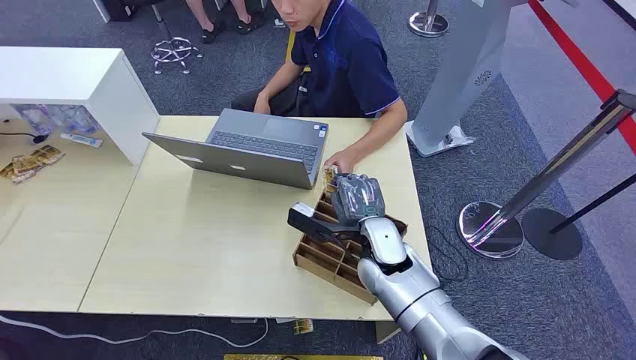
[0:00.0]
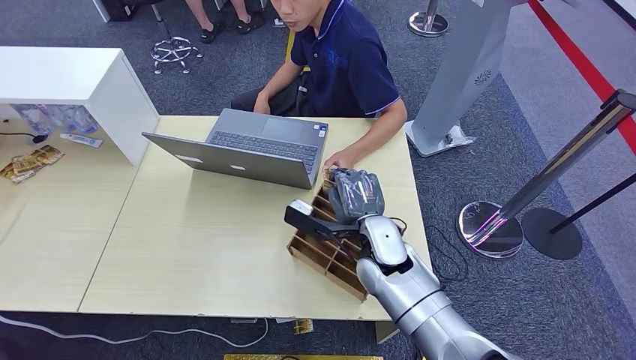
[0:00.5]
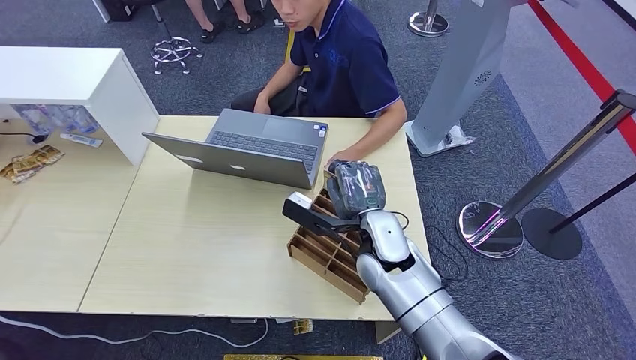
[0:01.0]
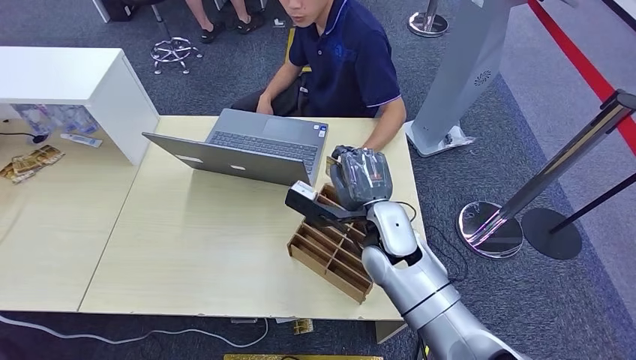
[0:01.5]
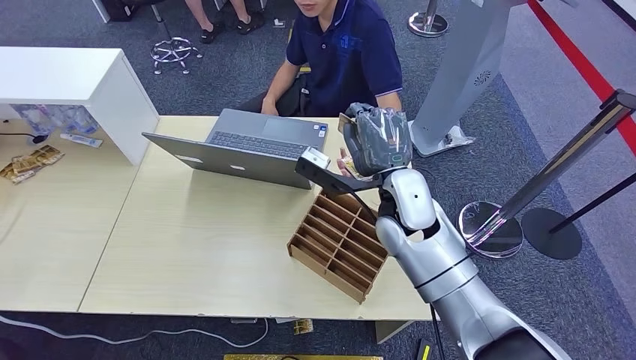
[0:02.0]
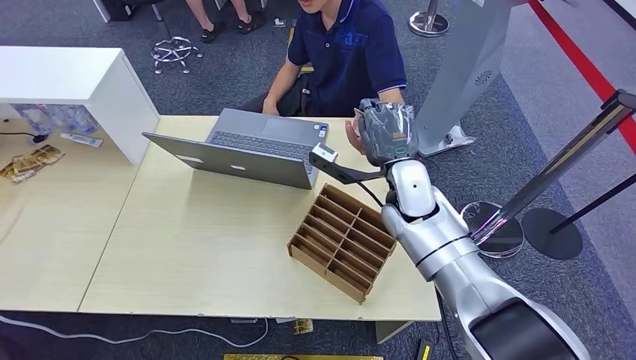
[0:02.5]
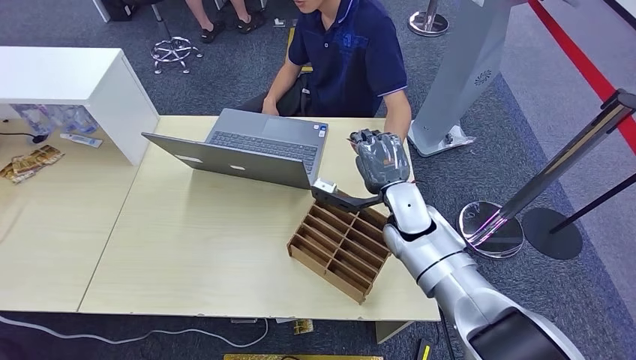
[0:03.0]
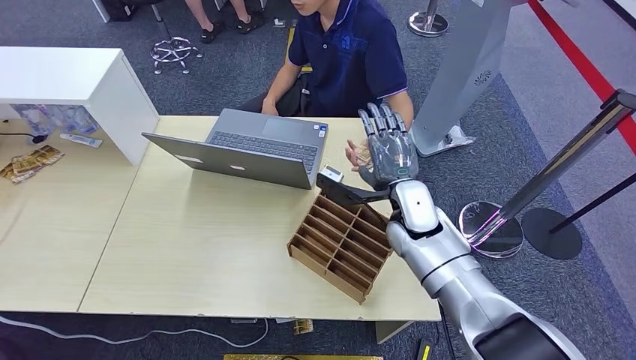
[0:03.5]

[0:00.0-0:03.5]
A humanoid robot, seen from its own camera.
Step, 0:00.0 to 0:01.5: Pick up the key card from the card box.
Step, 0:03.0 to 0:03.5: Hand the key card to the target.
0:02.0 to 0:03.5: The right hand shifts approximately 5 cm downward.
